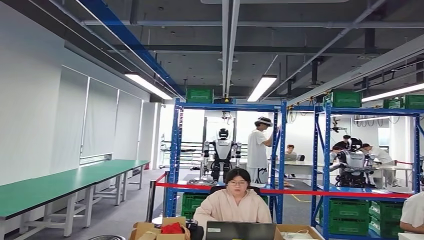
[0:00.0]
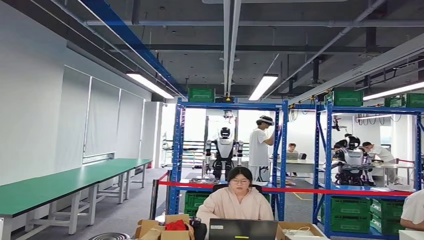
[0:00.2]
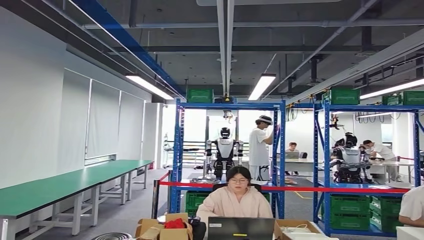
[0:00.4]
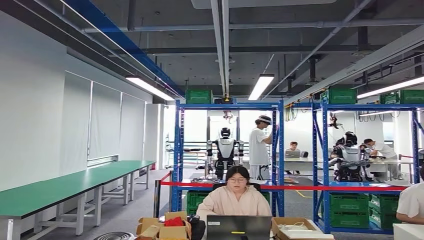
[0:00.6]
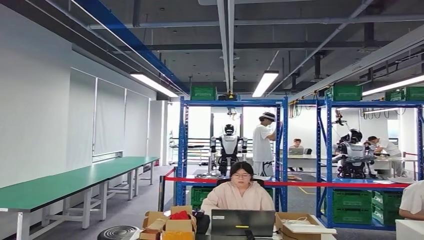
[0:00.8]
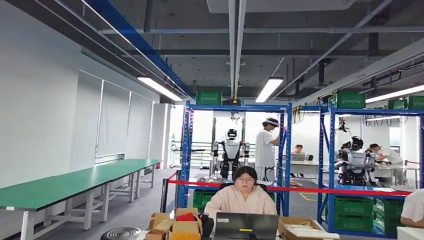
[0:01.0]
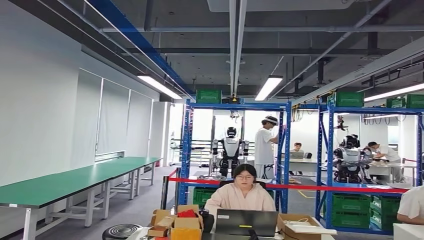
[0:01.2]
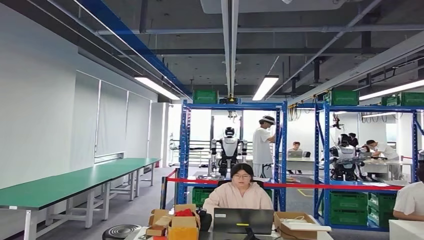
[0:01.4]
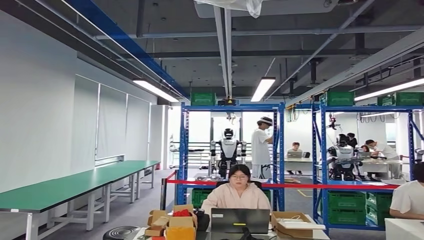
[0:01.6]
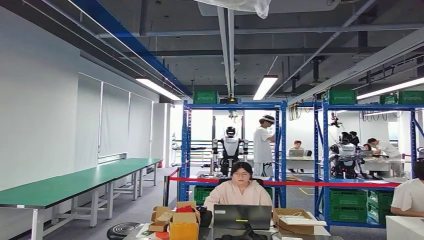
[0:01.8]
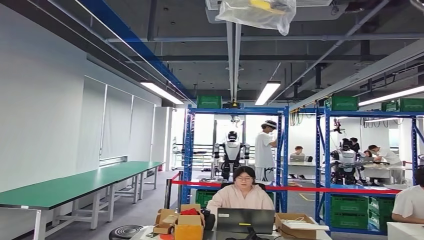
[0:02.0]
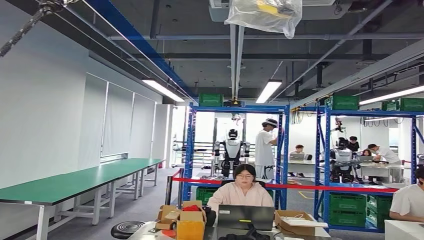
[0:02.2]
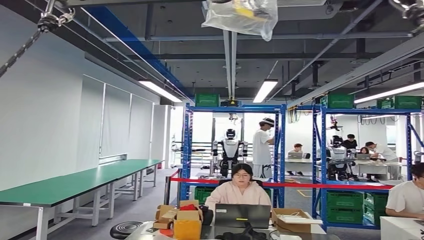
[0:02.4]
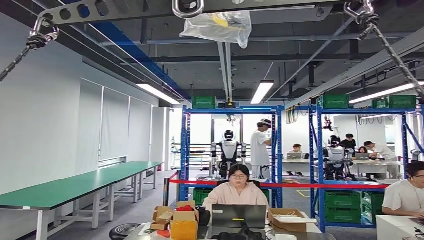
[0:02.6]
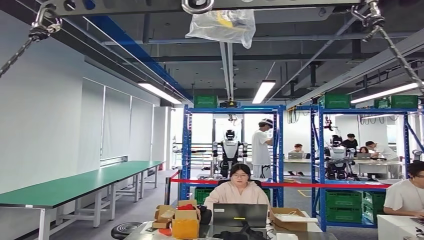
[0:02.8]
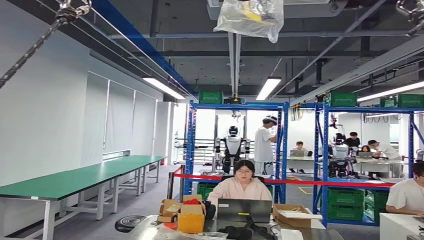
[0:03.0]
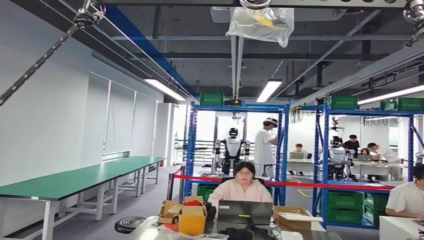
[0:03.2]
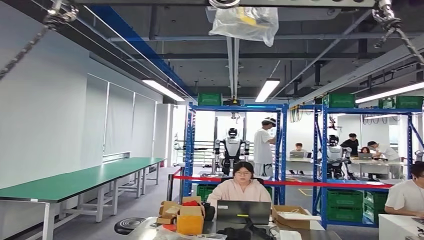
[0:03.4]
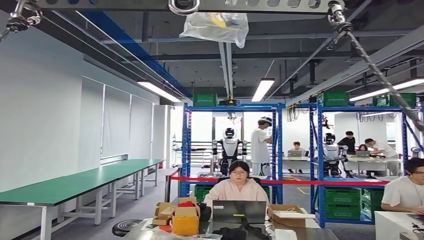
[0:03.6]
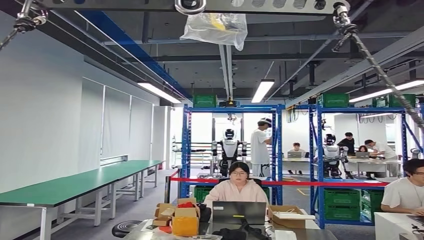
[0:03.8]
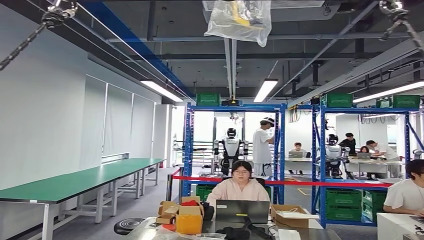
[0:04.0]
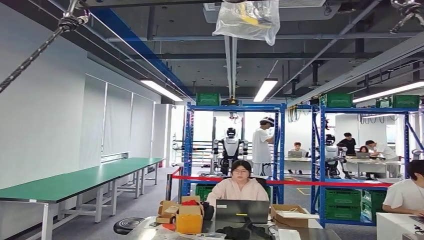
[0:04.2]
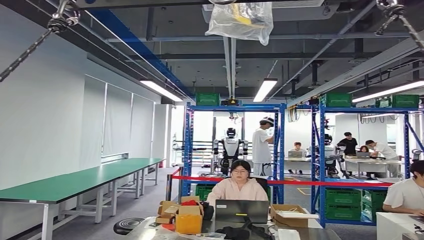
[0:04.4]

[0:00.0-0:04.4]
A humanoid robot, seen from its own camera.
Step, 0:00.6 to 0:04.4: Return to the initial position at the workbench.
